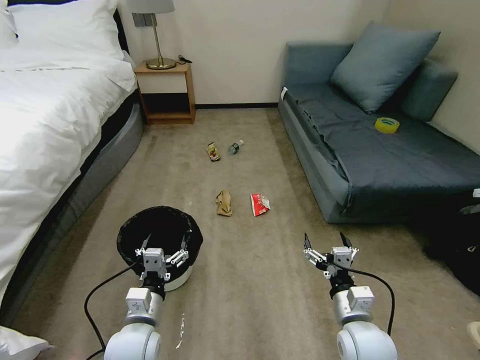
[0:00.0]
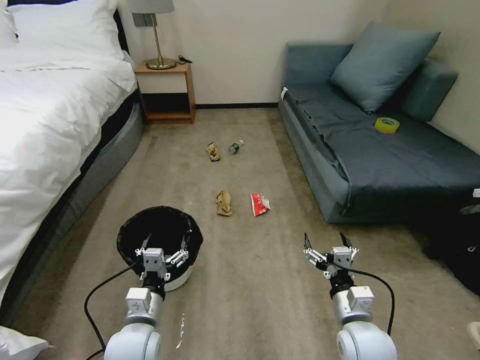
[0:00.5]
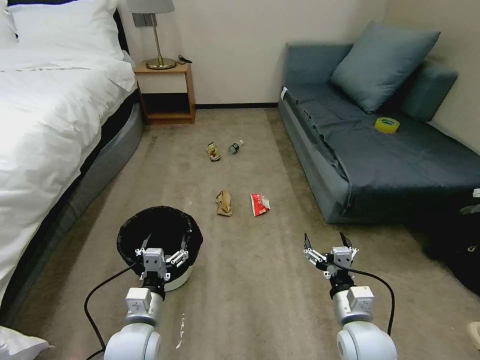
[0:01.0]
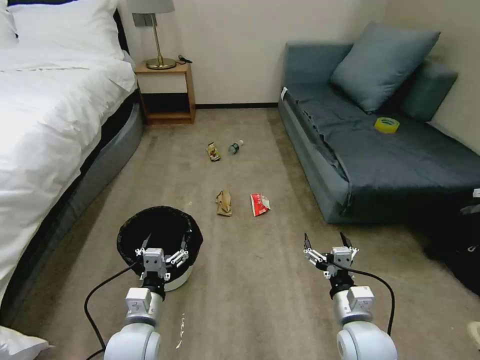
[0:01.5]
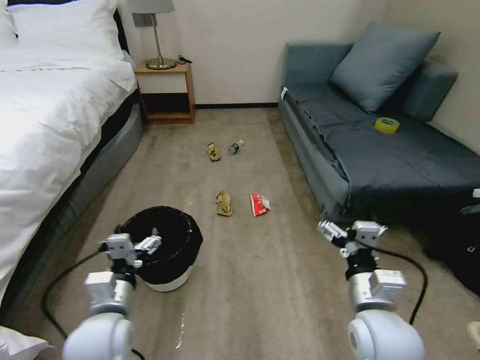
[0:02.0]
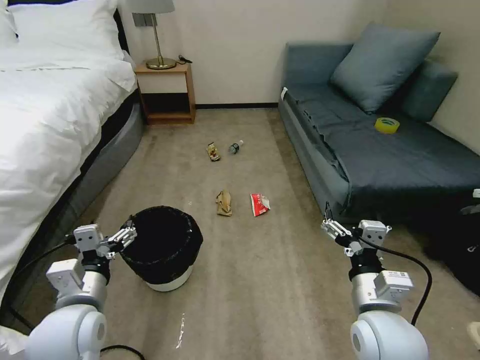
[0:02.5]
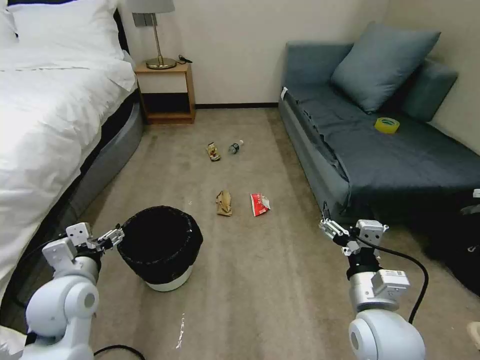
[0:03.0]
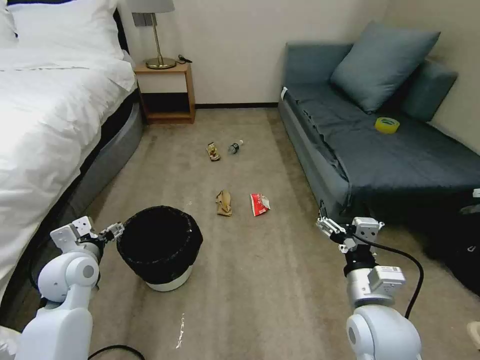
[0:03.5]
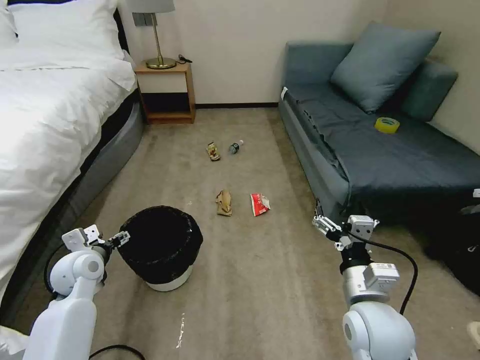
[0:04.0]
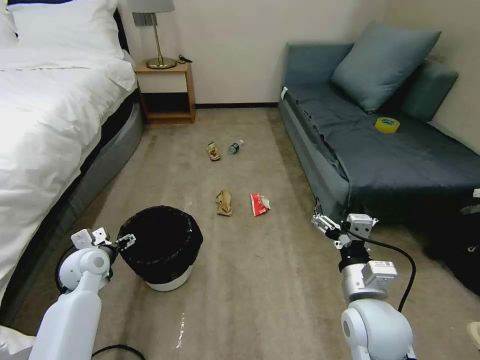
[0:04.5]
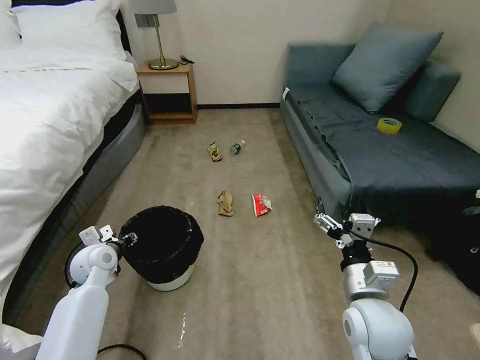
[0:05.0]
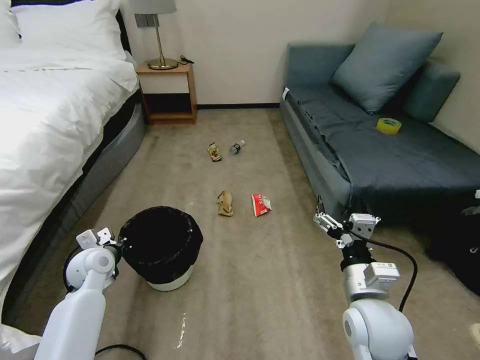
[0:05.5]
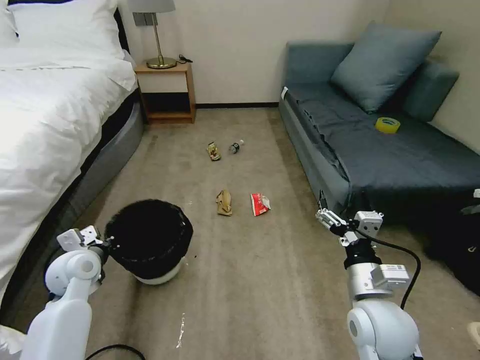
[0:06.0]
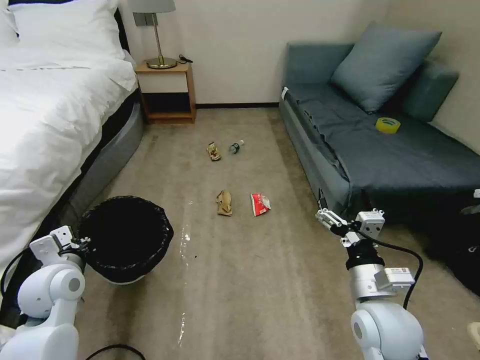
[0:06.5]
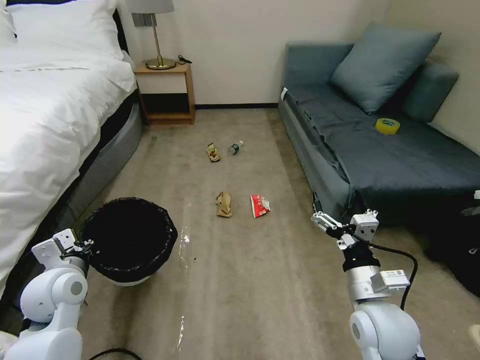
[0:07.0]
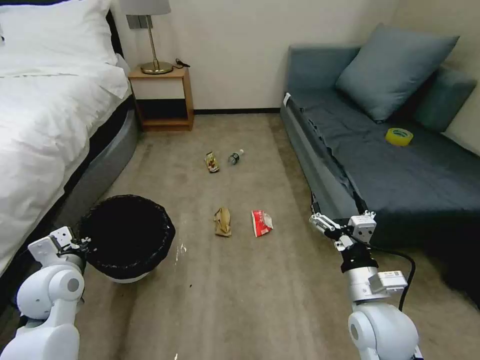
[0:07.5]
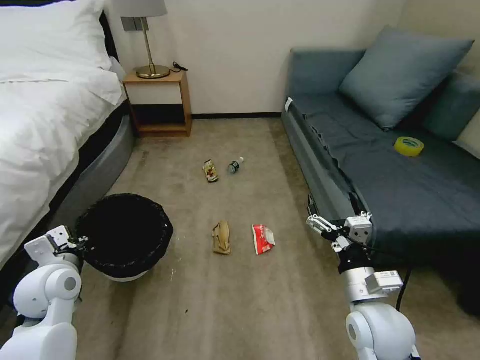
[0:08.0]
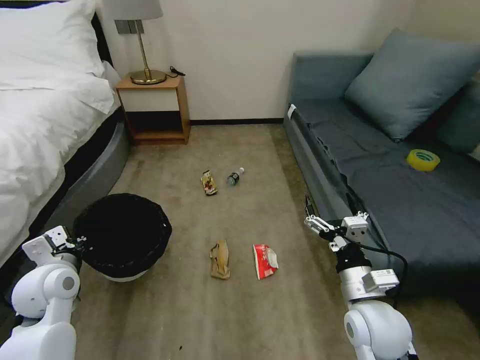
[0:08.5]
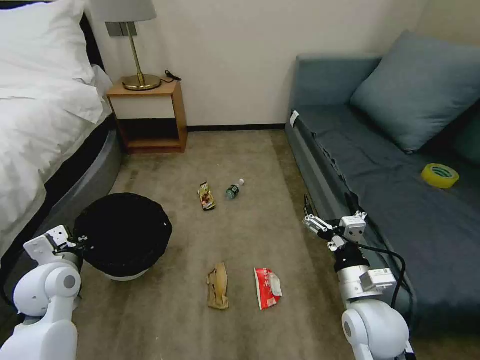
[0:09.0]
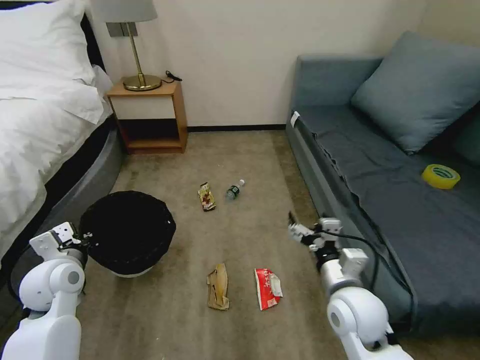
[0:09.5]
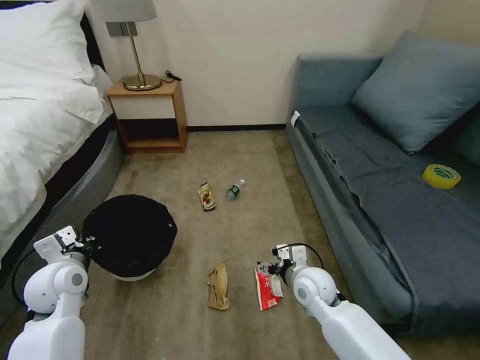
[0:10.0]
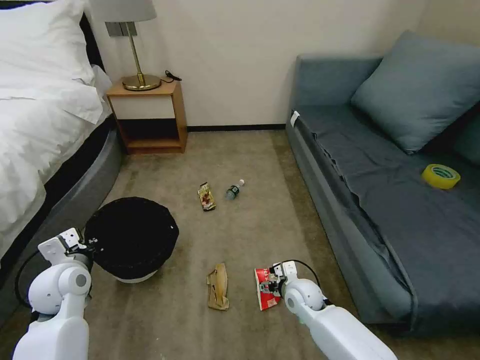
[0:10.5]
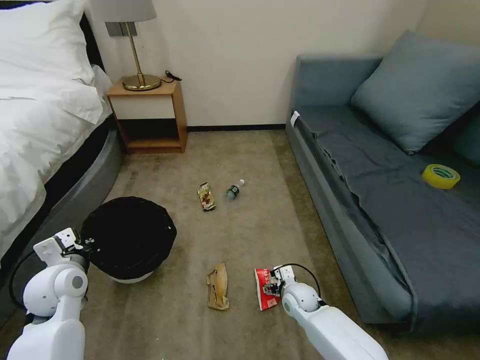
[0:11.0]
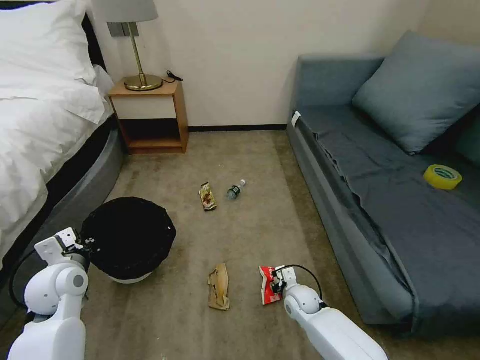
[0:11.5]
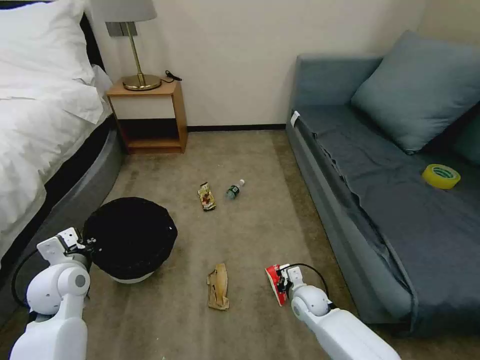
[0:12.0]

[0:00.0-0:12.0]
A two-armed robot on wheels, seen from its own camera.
Task of the whole recording: Pick up the trash bin, then pick up the garbage on the floor and place it into the trash bin.
0:02.0 to 0:04.0: The left gripper heads forward and to the left, covering about 20 cm.
0:04.0 to 0:06.0: The left gripper closes its fingers.
0:06.0 to 0:08.0: The left gripper is displaced backward by about 5 cm.
0:08.0 to 0:10.0: The right gripper goes roughly 15 cm forward, downward and to the left.
0:10.0 to 0:12.0: The right gripper travels downward by about 15 cm, and closes up.

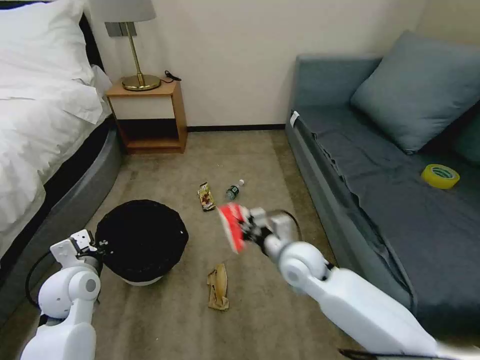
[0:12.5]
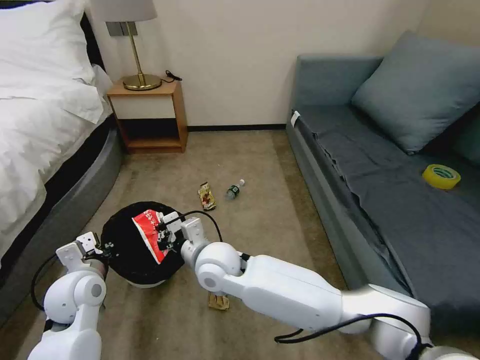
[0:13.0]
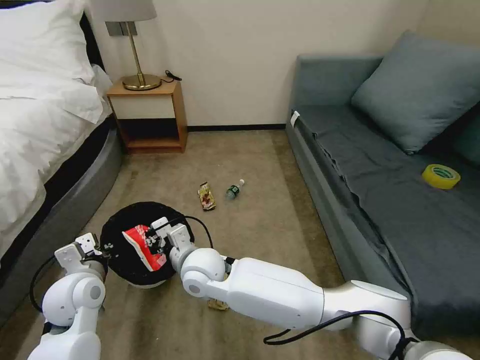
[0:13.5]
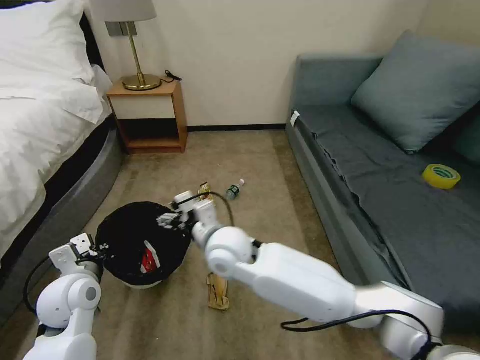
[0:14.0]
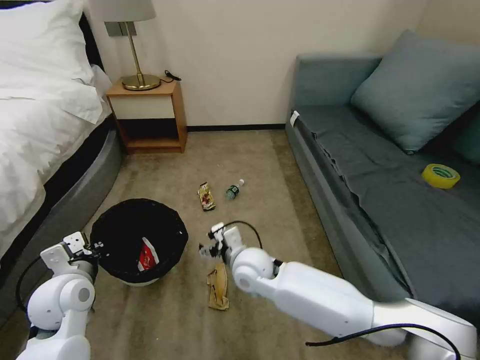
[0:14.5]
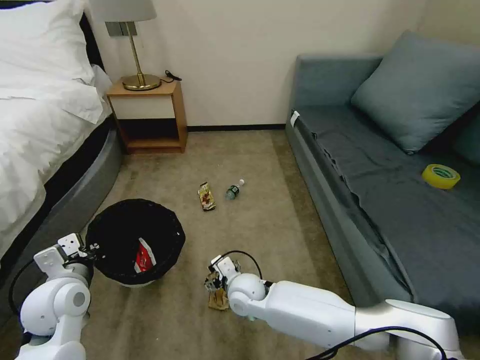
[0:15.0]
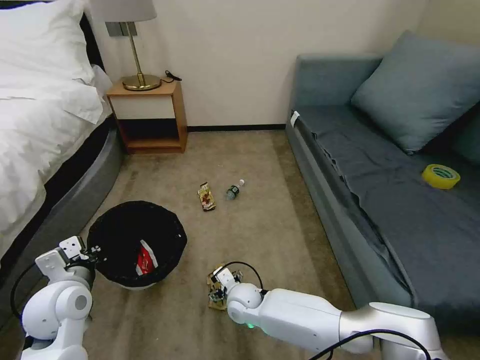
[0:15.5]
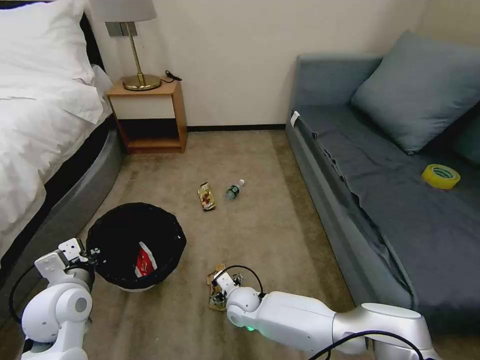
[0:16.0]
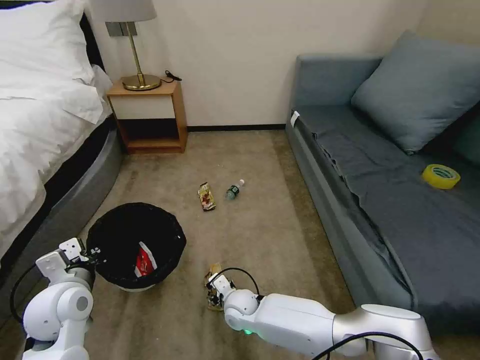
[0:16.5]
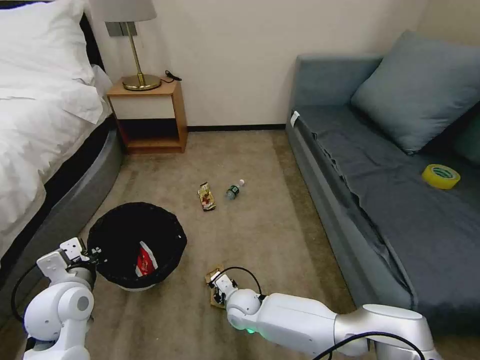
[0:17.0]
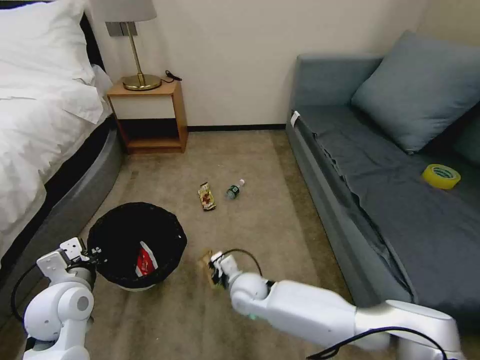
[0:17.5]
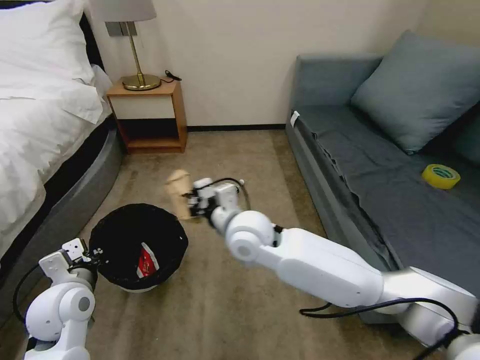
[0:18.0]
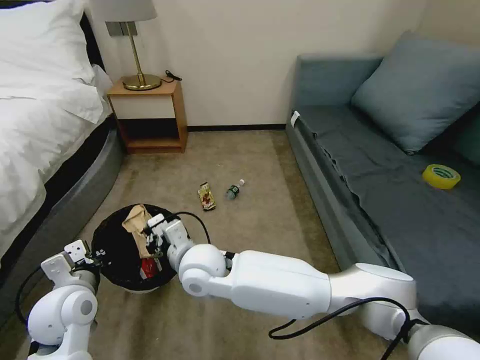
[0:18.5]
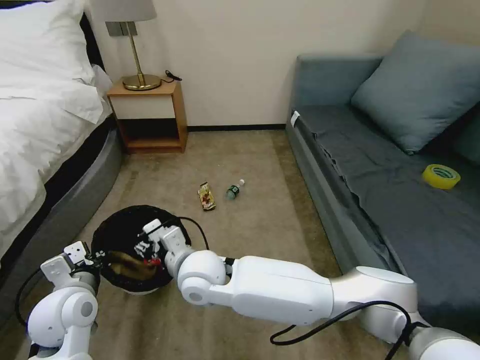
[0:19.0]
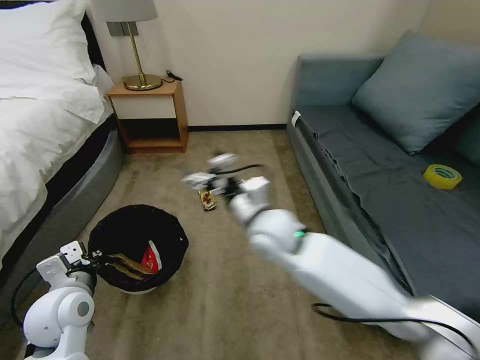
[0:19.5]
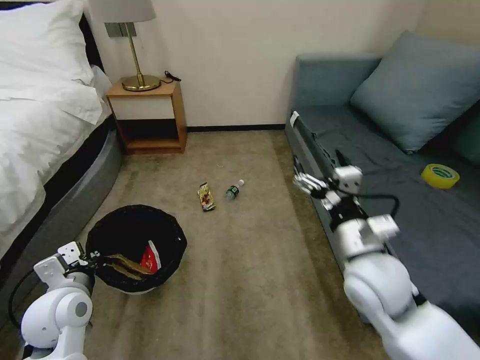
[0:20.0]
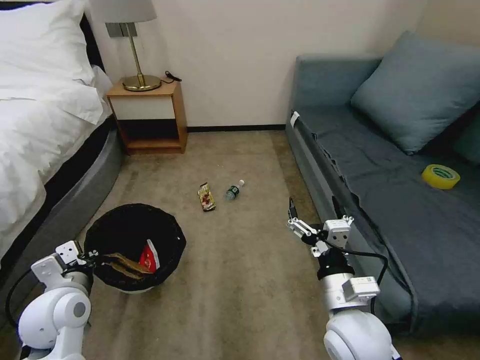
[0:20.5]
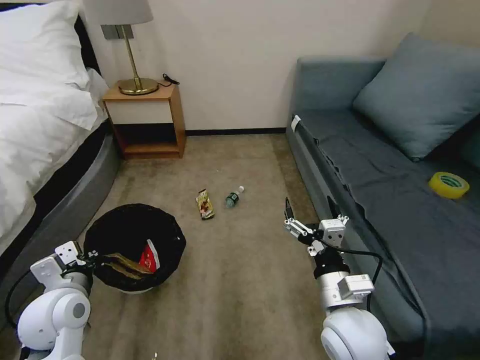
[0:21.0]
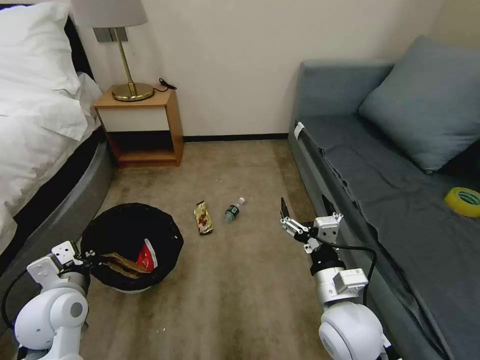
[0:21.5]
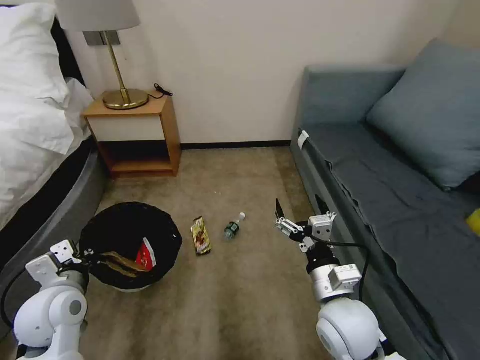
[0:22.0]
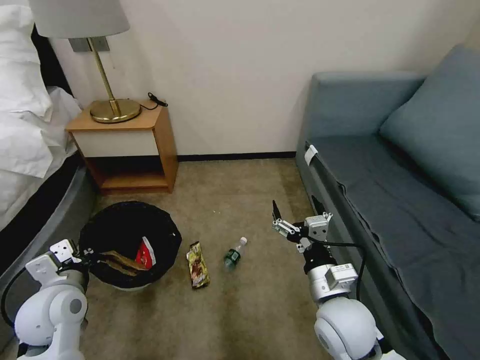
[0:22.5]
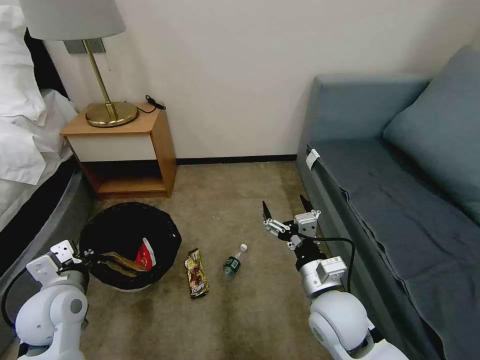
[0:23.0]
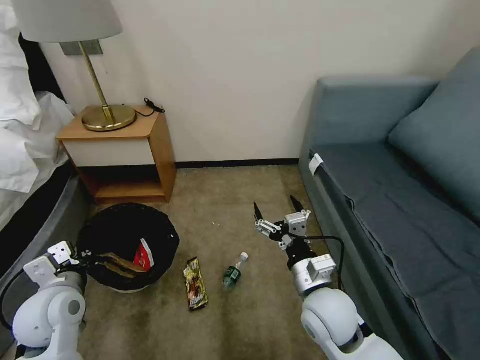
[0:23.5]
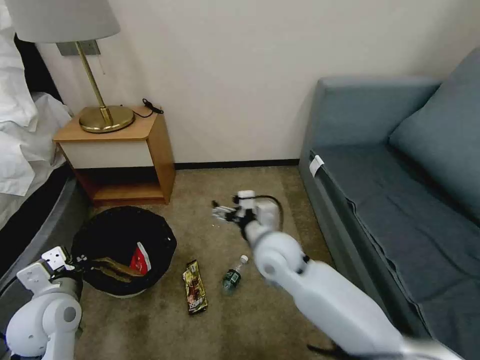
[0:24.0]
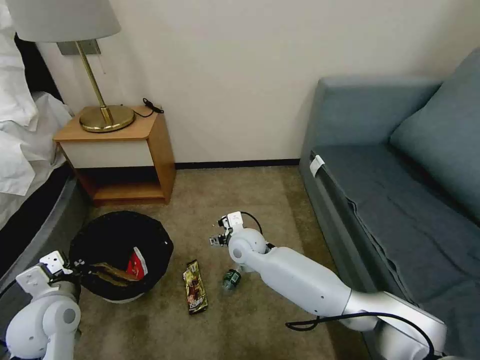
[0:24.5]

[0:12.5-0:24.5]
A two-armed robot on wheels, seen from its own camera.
Task of the whole recording: Pick up the trash bin, then pick up the garbage on the floor and place it into the trash bin.
0:12.5 to 0:14.5: The right gripper shifts roughly 10 cm to the left, and opens up.
0:14.5 to 0:16.5: The right gripper travels downward by about 15 cm.
0:16.5 to 0:18.5: The right gripper travels upward by roughly 25 cm, and closes up.
0:18.5 to 0:20.5: The right gripper moves to the right and backward, approximately 30 cm, and opens its fingers.
0:22.5 to 0:24.5: The right gripper travels forward and to the left by roughly 25 cm.

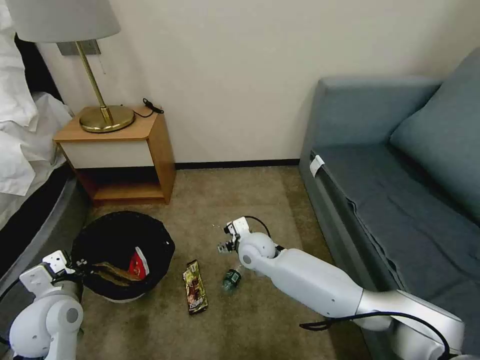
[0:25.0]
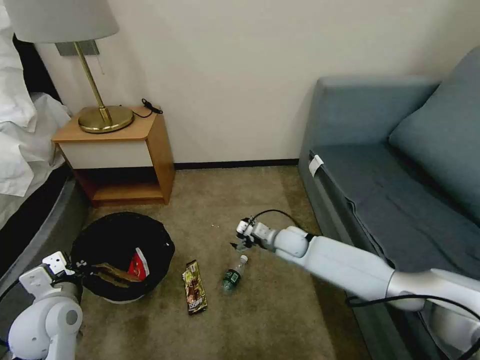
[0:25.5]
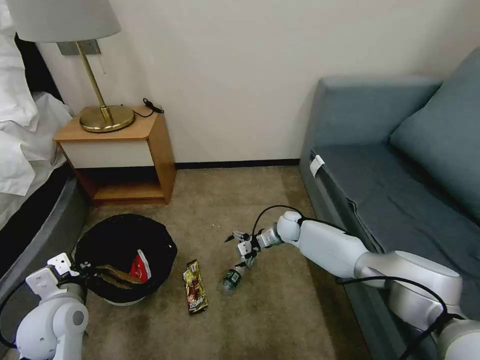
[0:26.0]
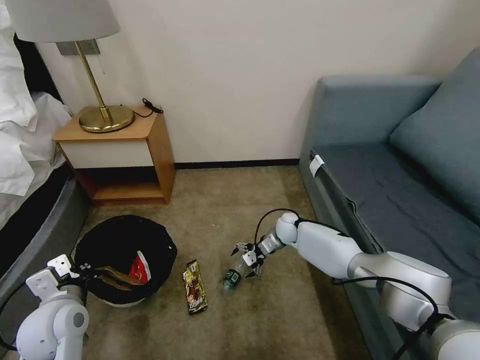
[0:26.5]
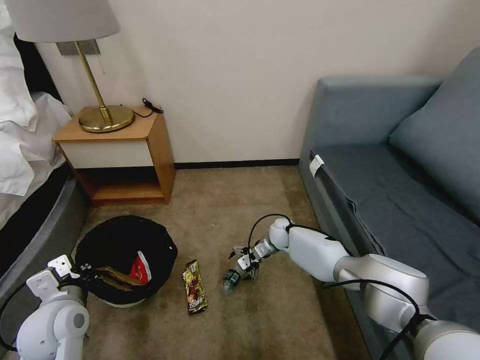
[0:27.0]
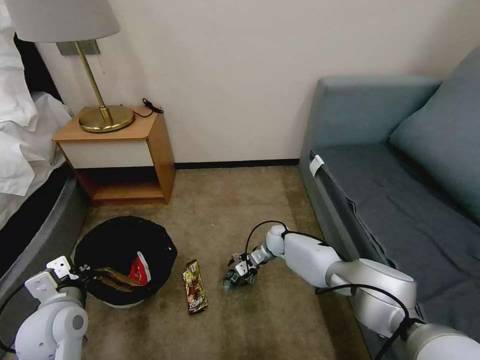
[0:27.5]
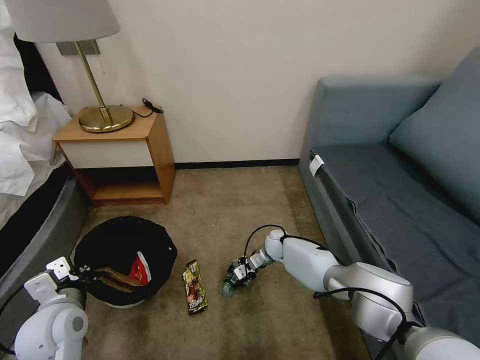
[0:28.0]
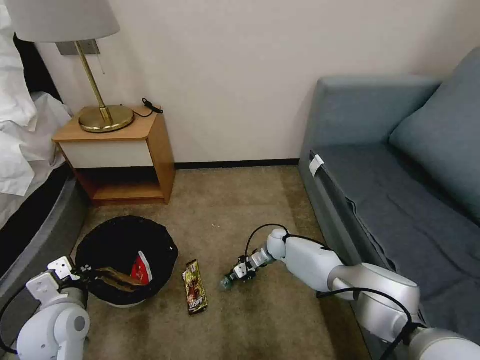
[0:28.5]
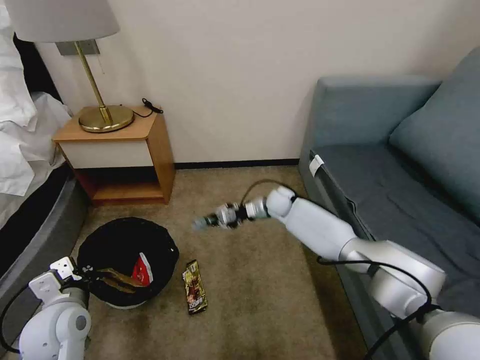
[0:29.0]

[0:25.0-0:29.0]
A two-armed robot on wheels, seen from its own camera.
Task of the whole recording: Pick up the trash bin, then pick up the garbage on the floor and place it into the trash bin.
0:25.0 to 0:27.0: The right gripper travels forward, to the right and downward by roughly 20 cm.
0:27.0 to 0:29.0: The right gripper goes about 10 cm upward, and closes its fingers.
